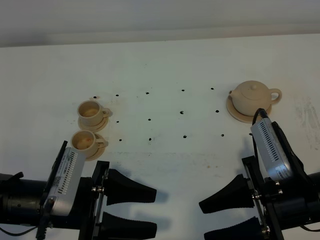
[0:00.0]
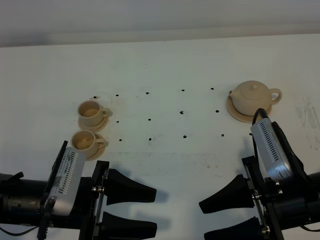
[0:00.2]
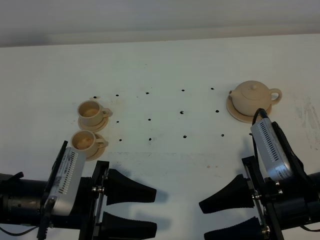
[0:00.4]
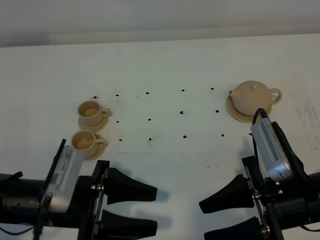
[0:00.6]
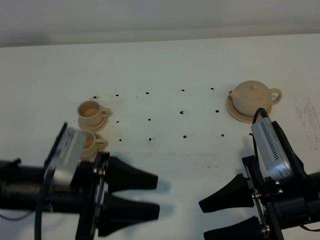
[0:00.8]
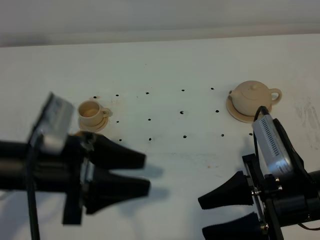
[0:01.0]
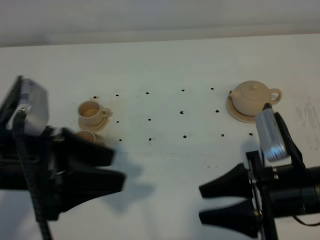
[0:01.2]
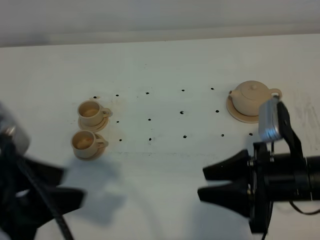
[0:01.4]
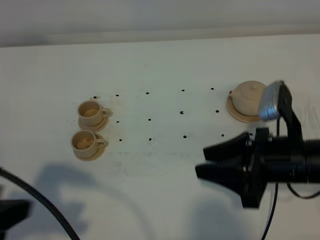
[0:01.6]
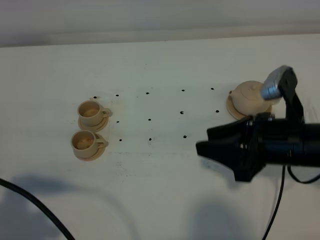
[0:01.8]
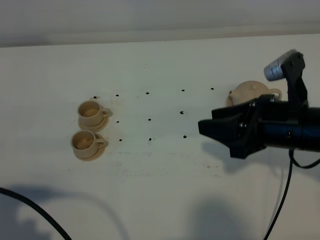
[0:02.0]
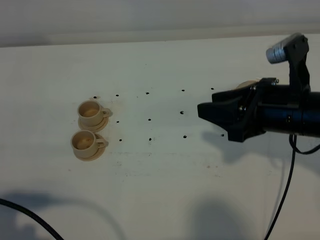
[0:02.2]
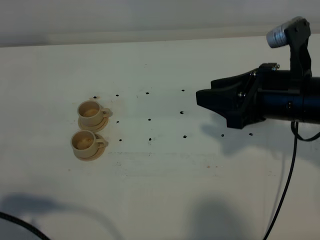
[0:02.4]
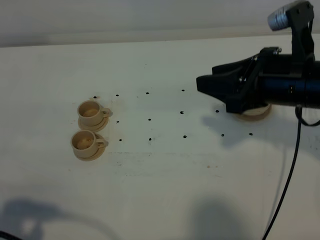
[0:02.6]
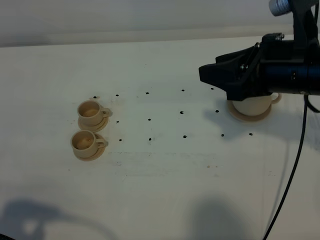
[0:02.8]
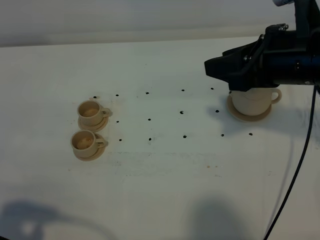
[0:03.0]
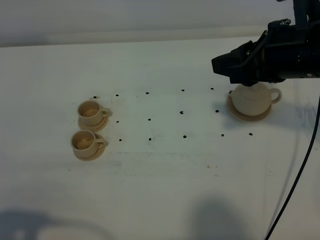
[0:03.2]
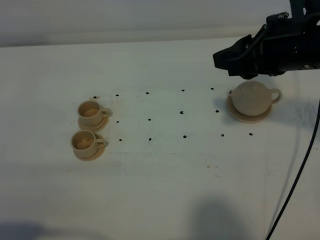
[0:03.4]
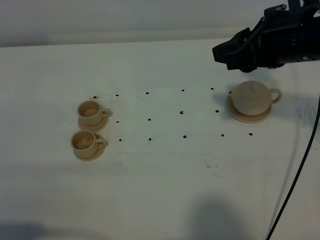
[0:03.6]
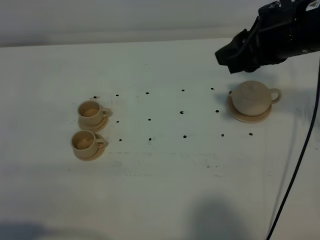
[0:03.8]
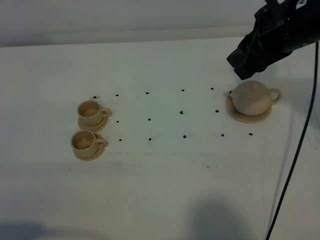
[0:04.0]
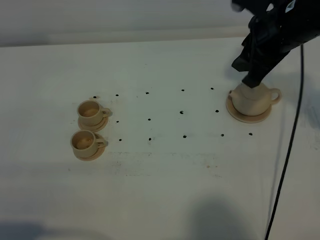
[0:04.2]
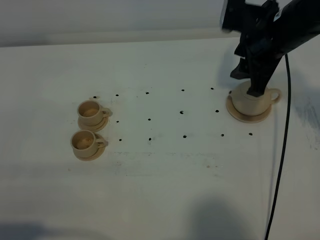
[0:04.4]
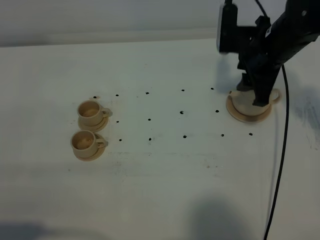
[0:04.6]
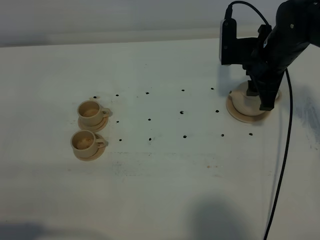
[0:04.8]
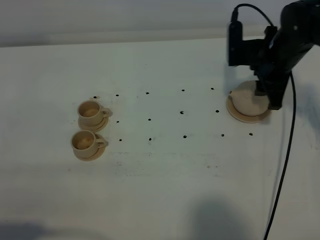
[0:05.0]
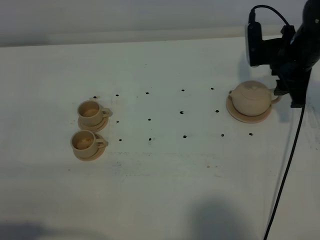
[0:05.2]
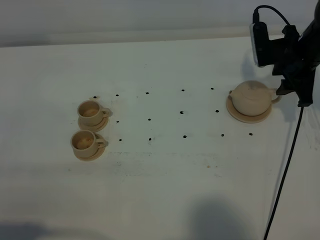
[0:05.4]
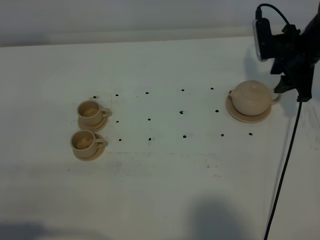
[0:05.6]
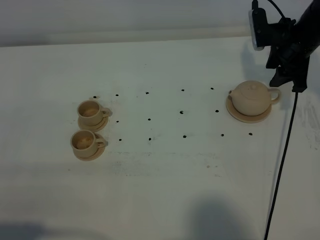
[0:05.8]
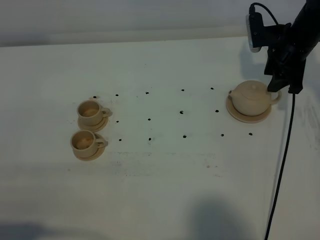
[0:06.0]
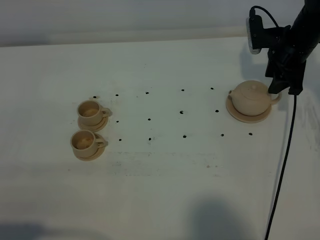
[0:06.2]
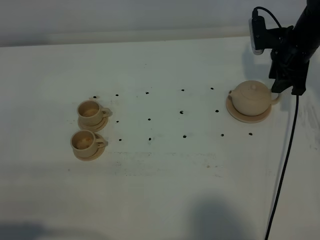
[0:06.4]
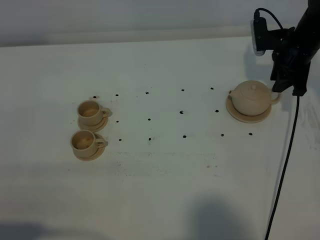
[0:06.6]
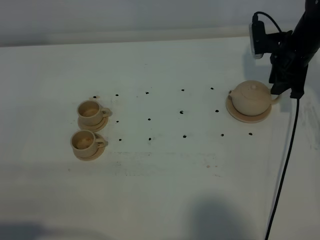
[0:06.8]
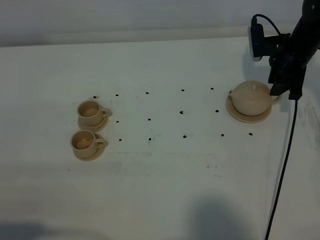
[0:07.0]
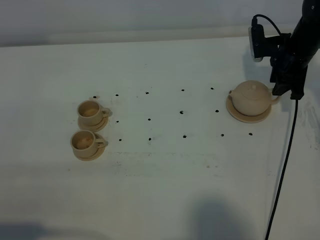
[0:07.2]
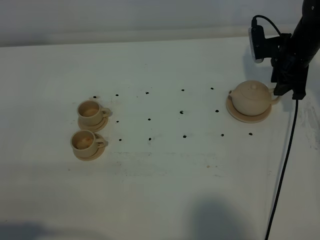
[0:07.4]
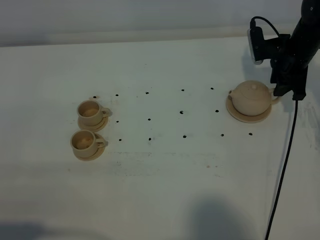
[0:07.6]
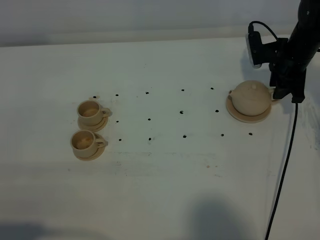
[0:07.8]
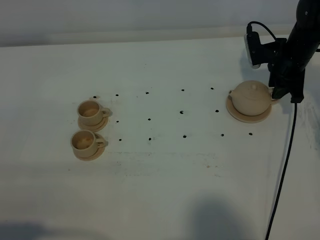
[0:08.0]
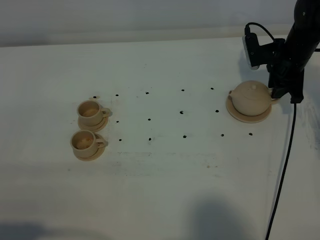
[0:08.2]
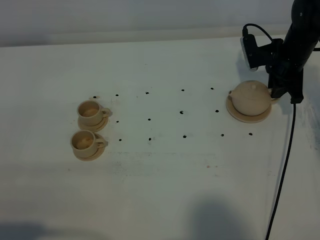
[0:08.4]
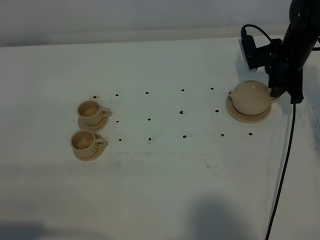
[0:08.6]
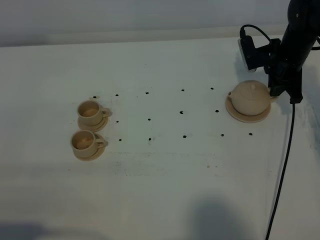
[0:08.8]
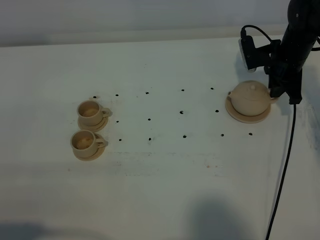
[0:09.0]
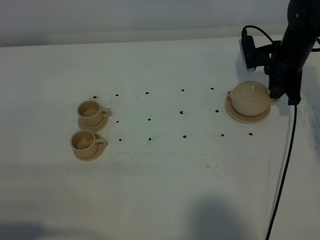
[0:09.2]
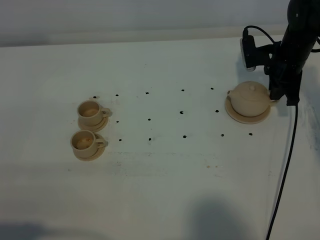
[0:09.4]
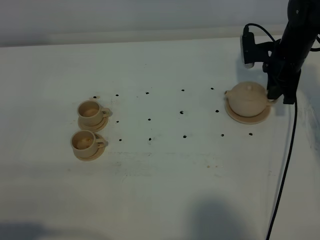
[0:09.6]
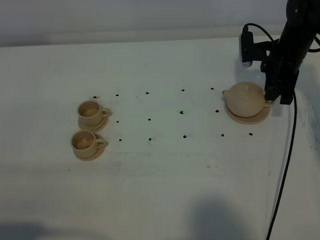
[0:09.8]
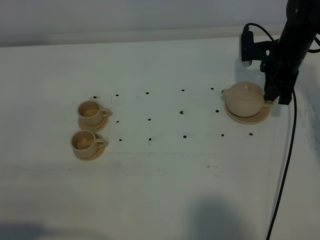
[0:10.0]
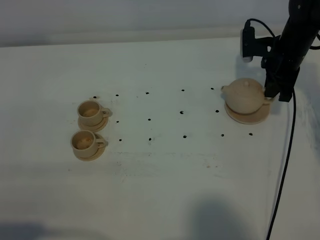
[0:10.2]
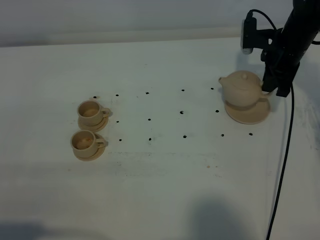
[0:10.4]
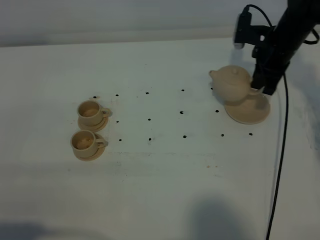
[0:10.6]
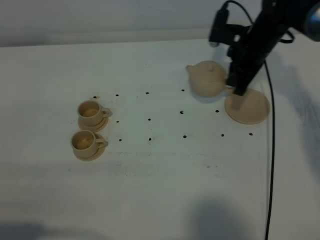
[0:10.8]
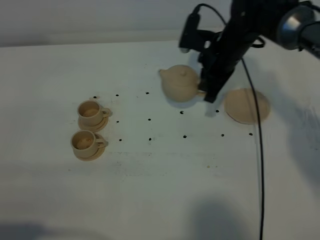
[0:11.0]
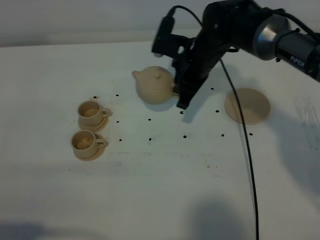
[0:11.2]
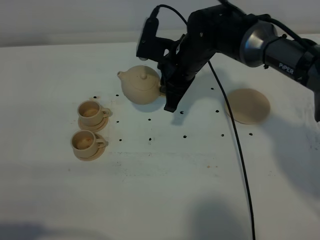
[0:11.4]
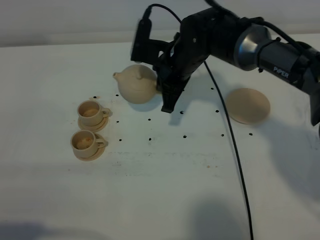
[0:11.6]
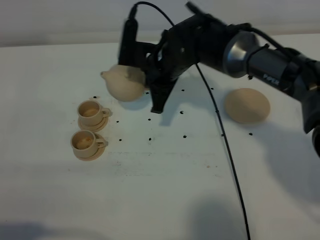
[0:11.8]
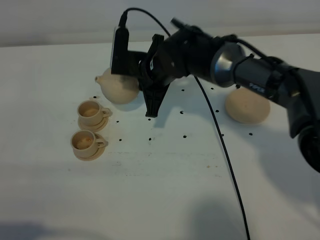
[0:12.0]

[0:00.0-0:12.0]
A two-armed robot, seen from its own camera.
Task of the whole recording: grasp the brown teapot and pour the tea into the two brown teacups one by one, put the brown teapot back in its original place.
Step, 0:00.0 to 0:10.2: Pick up the teapot with the right gripper.
0:00.0 to 0:01.6: The left gripper shifts about 15 cm upward, to the left and backward.
0:01.6 to 0:03.0: The left gripper shifts approximately 5 cm backward, while the right gripper goes about 15 cm upward and forward.
0:03.0 to 0:04.4: The right gripper heads forward and downward, covering roughly 10 cm.
0:04.4 to 0:06.0: The right gripper goes about 15 cm forward, downward and to the right.
0:06.0 to 0:07.6: The grippers move only a little.
0:07.6 to 0:09.0: The right gripper closes.
0:09.0 to 0:10.4: There are only small adjustments of the grippers.
0:10.4 to 0:12.0: The right gripper goes some 25 cm to the left.

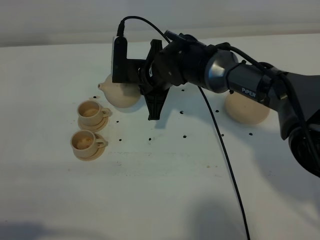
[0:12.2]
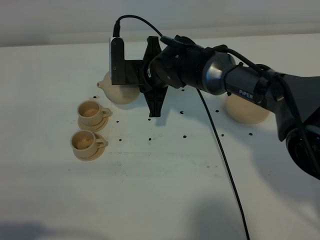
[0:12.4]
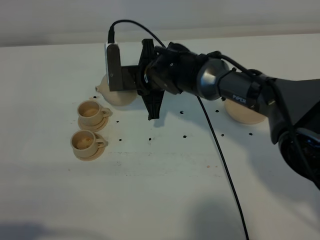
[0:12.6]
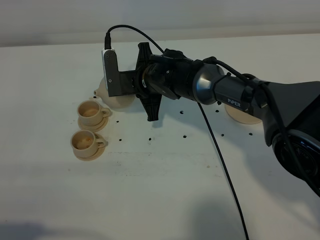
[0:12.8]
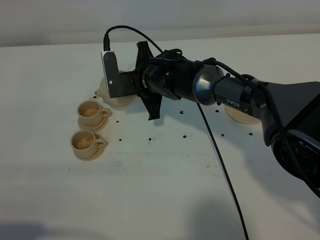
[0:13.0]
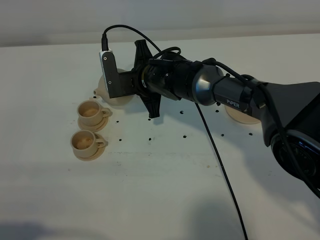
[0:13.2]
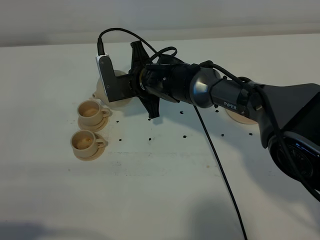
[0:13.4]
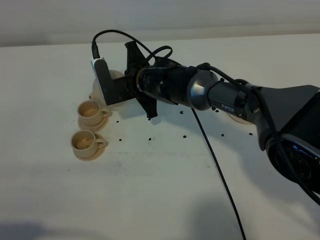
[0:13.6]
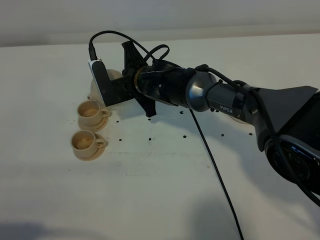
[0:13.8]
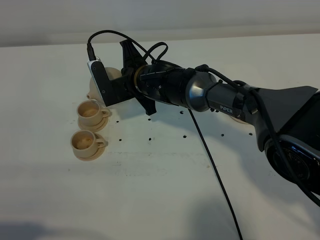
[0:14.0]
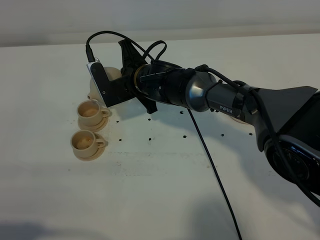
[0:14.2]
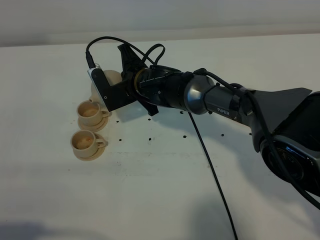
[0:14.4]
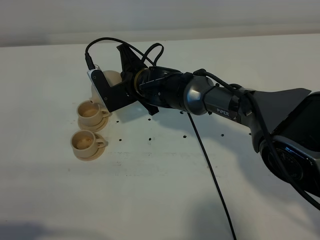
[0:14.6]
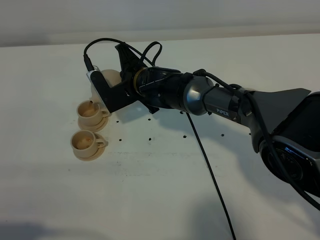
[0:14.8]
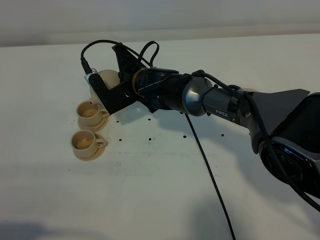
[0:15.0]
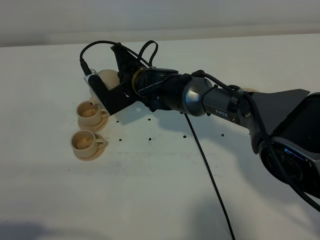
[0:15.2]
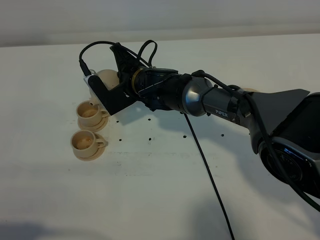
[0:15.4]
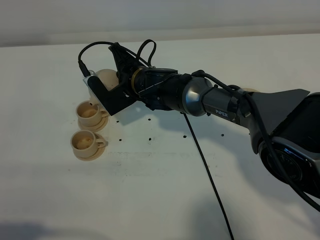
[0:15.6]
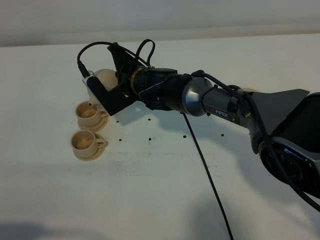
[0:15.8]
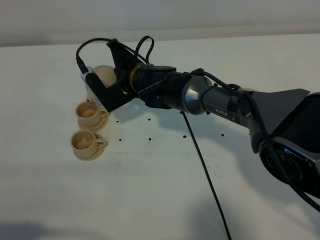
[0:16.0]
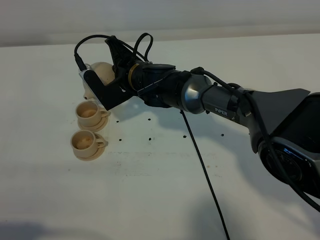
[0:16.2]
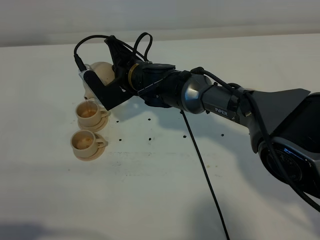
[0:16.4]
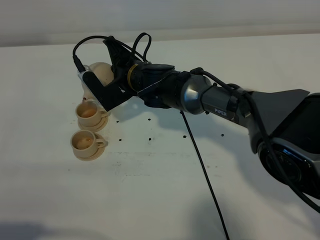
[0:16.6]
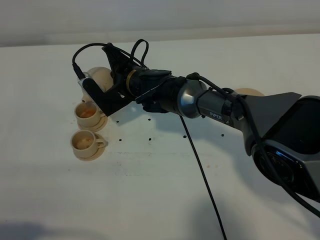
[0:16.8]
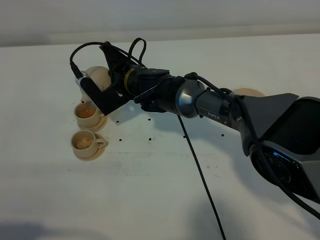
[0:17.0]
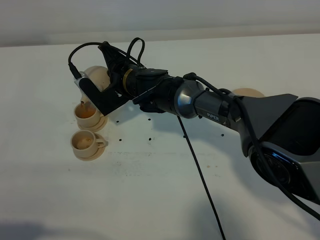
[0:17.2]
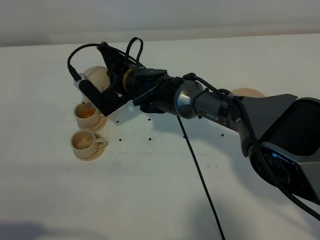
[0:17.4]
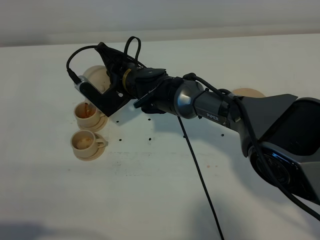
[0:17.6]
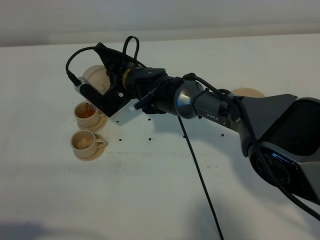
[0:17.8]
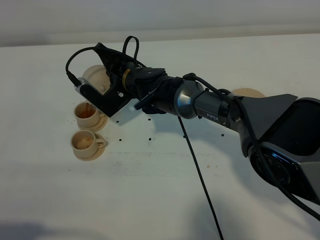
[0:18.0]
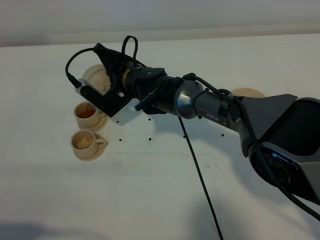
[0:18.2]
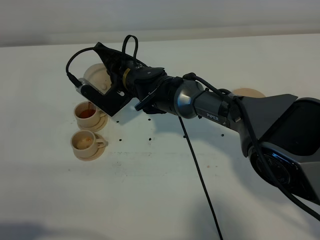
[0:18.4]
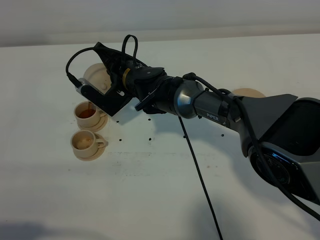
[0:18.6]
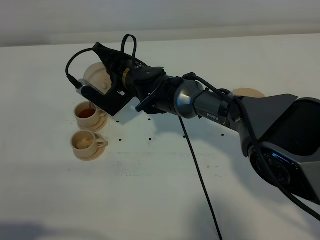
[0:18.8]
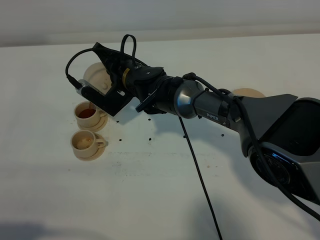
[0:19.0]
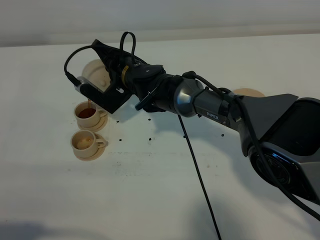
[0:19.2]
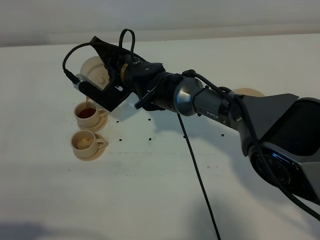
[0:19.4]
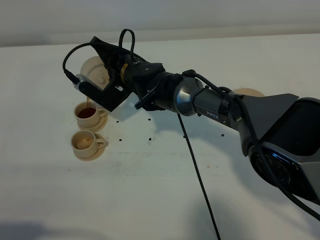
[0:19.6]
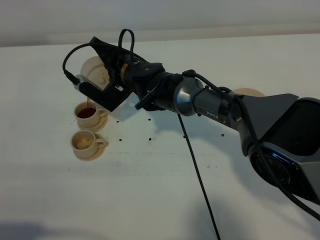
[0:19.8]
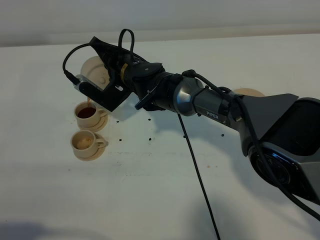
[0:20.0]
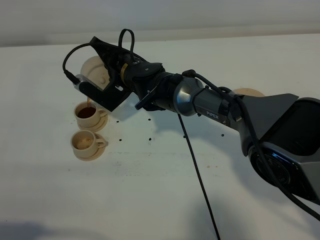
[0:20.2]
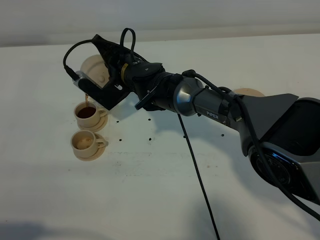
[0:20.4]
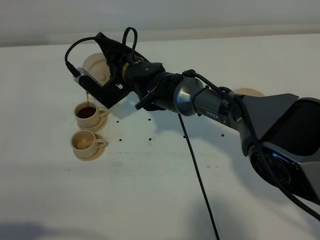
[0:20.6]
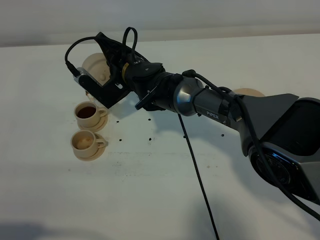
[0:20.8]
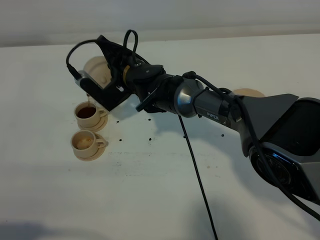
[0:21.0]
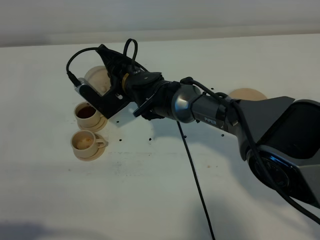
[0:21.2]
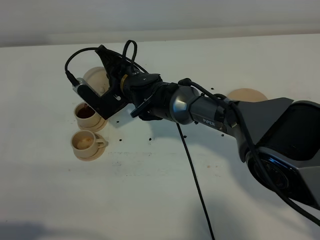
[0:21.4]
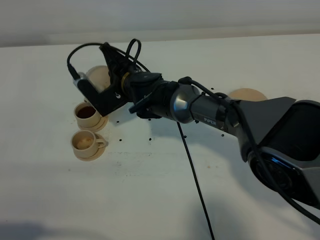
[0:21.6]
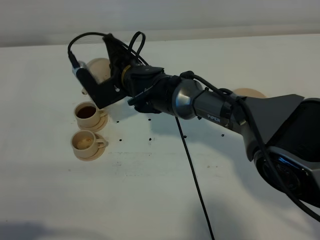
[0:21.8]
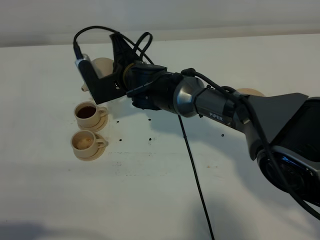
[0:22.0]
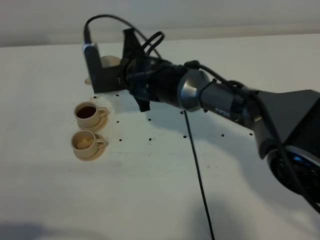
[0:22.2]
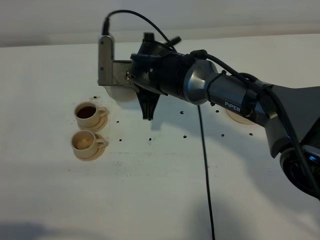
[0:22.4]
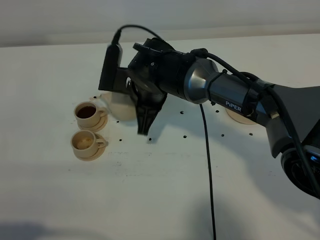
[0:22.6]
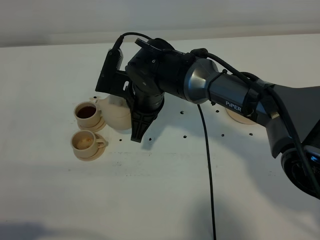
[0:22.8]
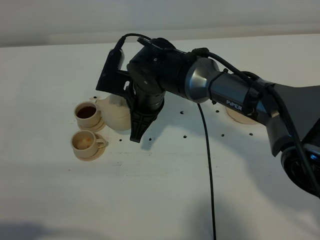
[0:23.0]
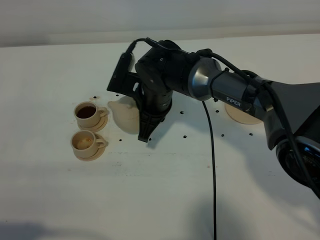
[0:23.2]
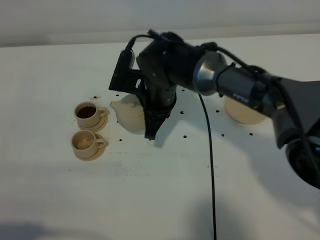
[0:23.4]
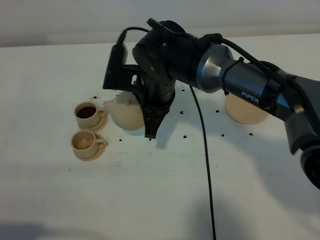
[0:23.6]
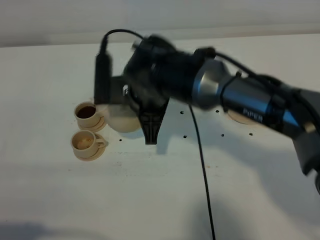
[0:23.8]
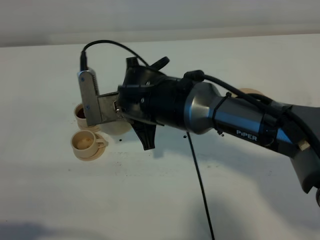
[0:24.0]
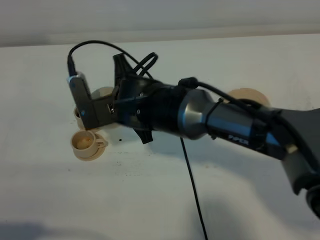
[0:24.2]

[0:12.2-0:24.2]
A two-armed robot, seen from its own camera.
Task of the whole recording: grasp the brown teapot and pour the tea into the two brown teacups one by one, put the brown teapot back in its original place.
0:13.8 to 0:15.2: There are only small adjustments of the grippers.
0:15.2 to 0:18.2: There are only small adjustments of the grippers.
0:18.2 to 0:19.8: Both grippers stay put.
0:19.8 to 0:21.2: The grippers make only small movements.
0:21.2 to 0:22.6: The right gripper heads backward, covering some 5 cm.
0:22.6 to 0:24.2: The right gripper shifts by about 5 cm.
